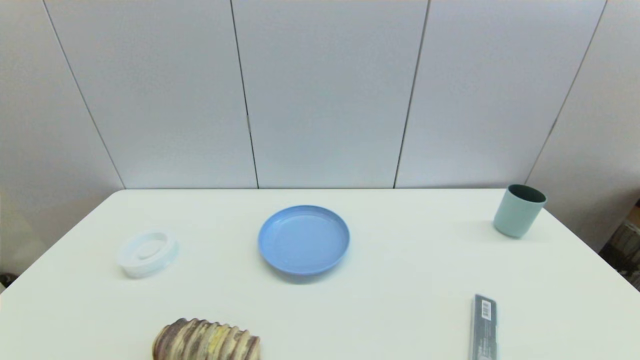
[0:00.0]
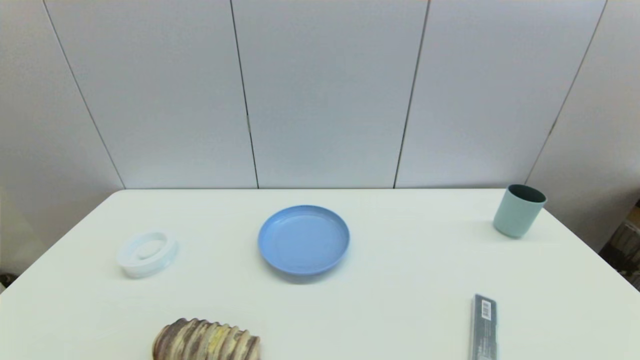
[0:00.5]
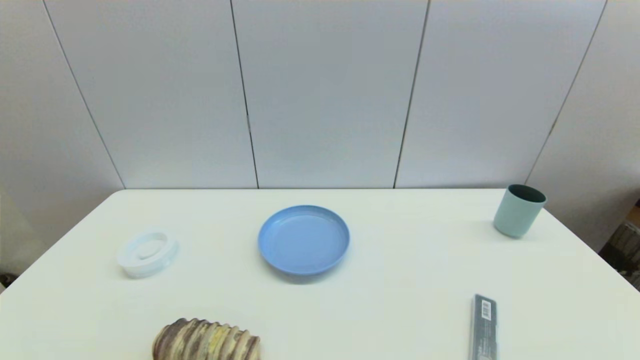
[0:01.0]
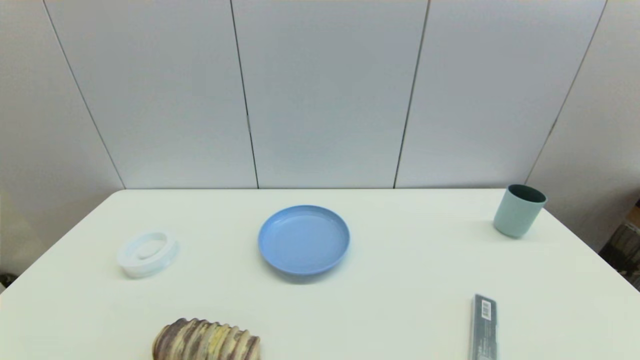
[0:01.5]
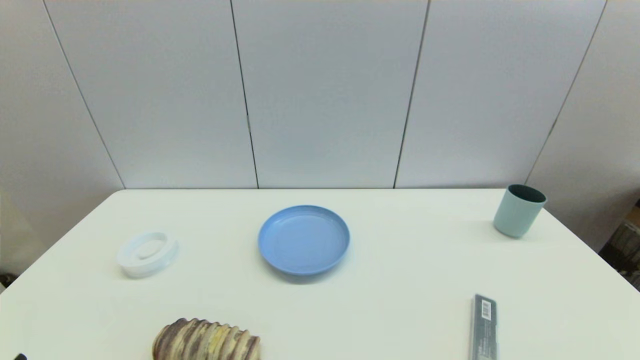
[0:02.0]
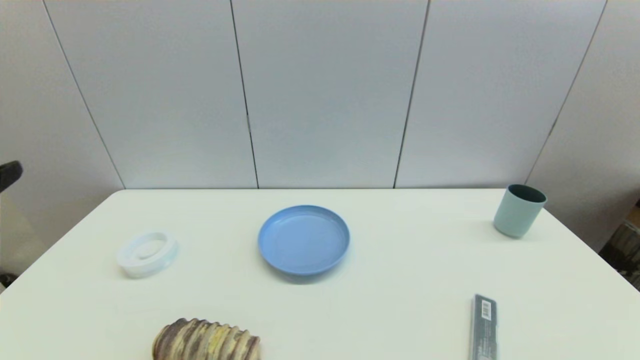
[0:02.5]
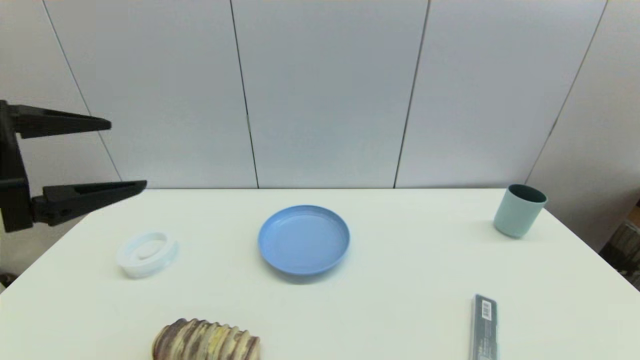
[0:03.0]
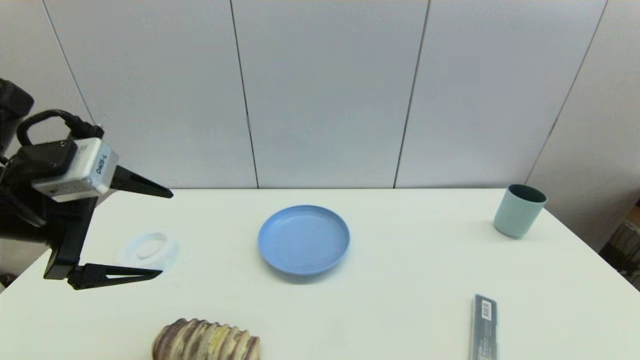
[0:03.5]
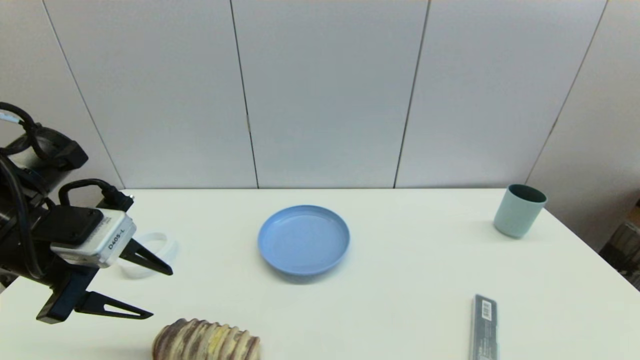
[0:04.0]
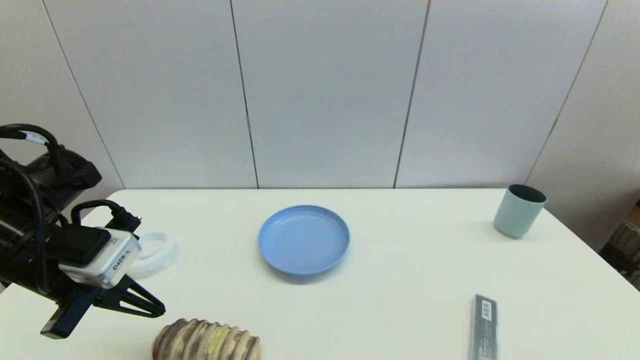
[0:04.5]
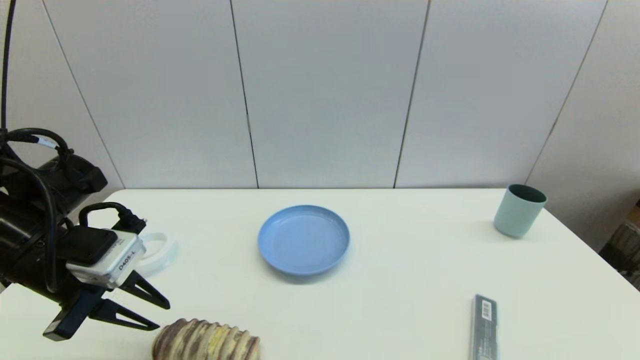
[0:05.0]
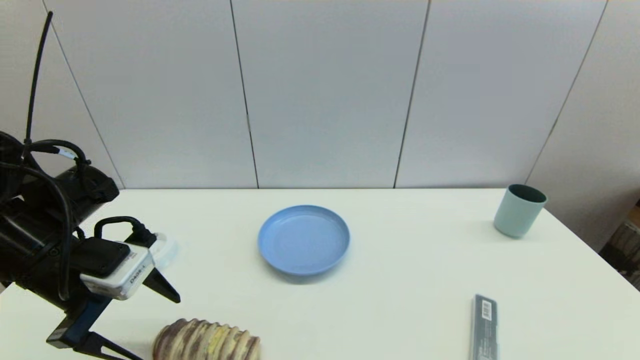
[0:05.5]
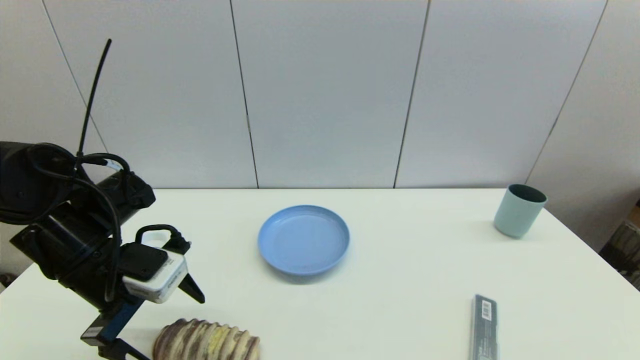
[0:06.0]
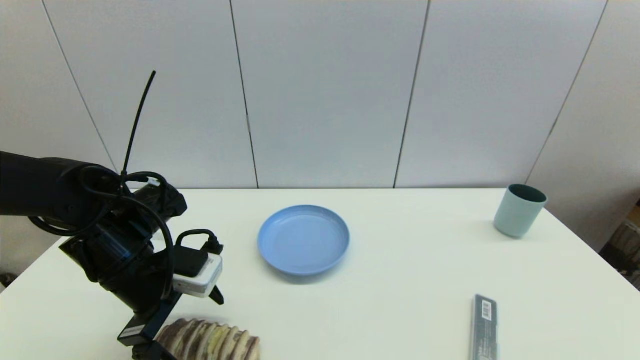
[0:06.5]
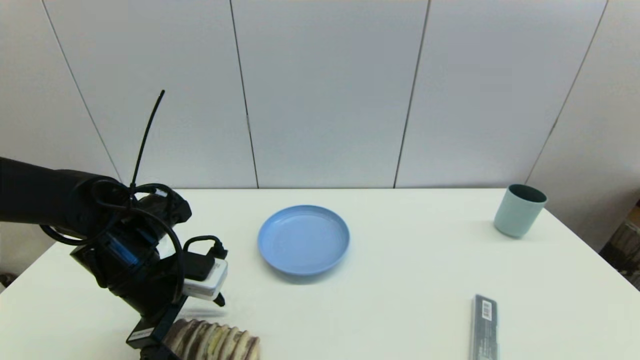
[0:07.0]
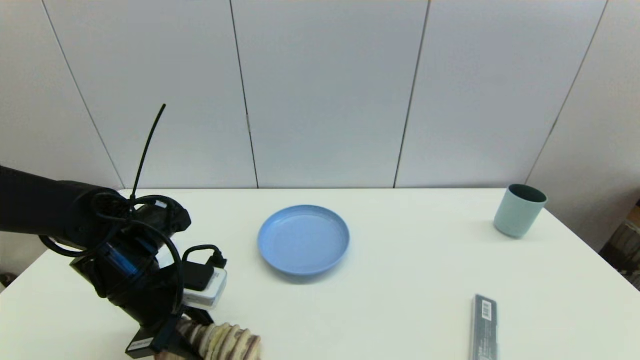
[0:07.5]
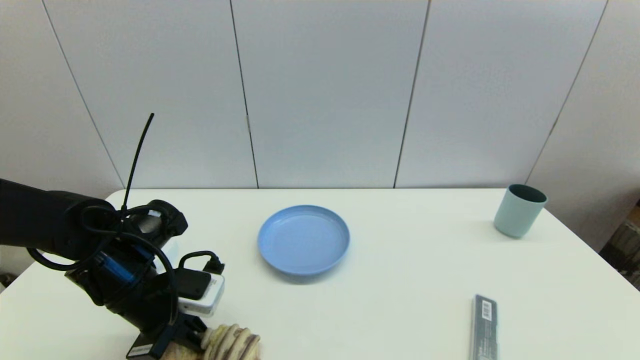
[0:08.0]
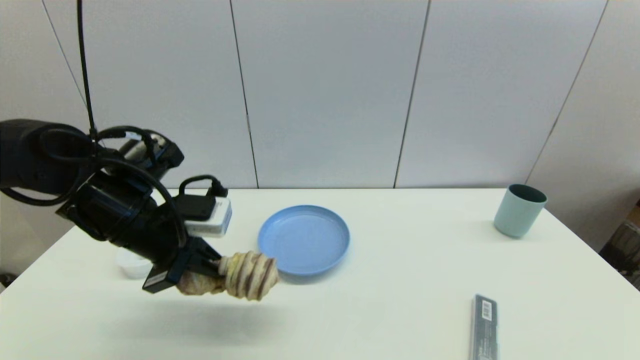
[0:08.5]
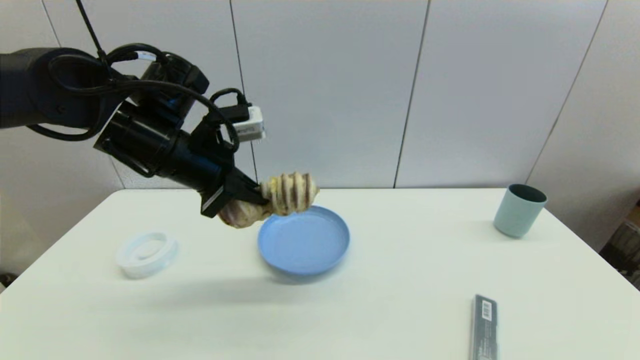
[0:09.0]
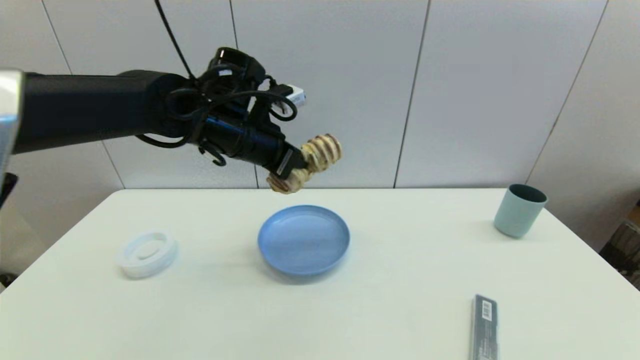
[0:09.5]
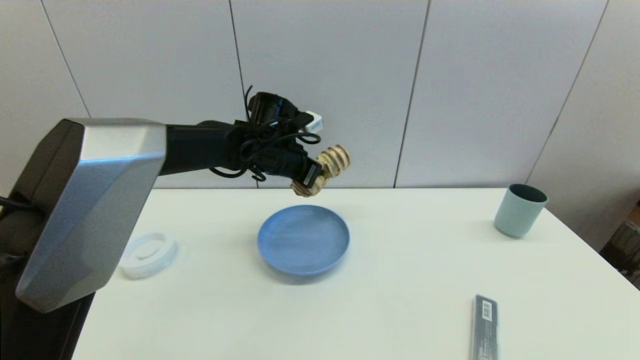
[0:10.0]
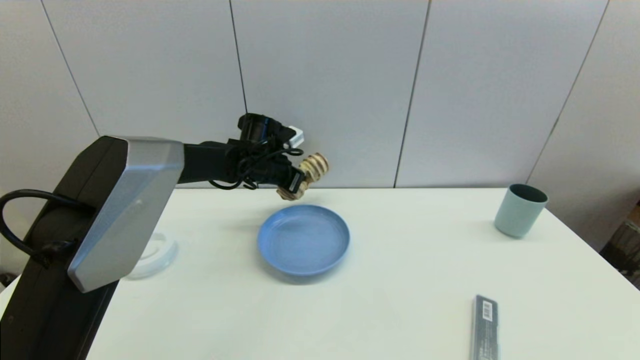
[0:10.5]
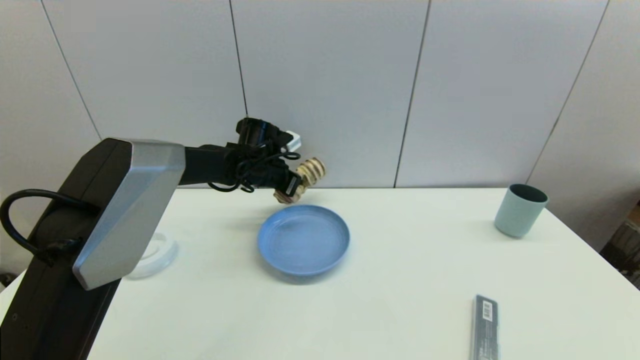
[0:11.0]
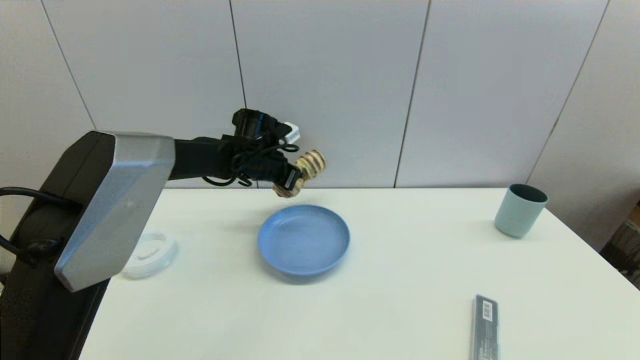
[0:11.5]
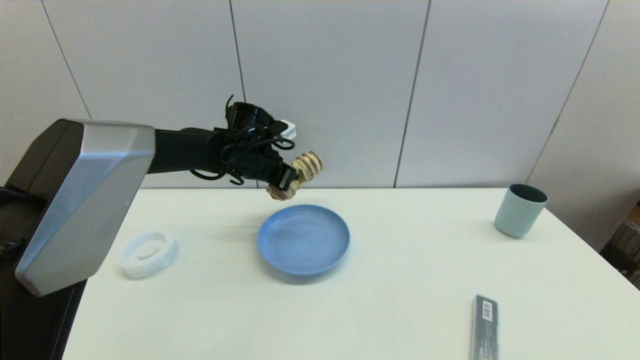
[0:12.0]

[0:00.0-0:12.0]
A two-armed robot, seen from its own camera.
Step, 0:03.0 to 0:07.5: Grasp the long bread with left gripper.
0:02.0 to 0:04.0: The left gripper heads forward and upward, covering approximately 25 cm, and closes.
0:04.0 to 0:06.0: The left gripper goes roughly 5 cm downward, and opens up.
0:06.0 to 0:08.0: The left gripper moves downward, roughly 5 cm, and closes its fingers.
0:08.0 to 0:10.0: The left gripper heads forward and to the right, covering some 25 cm.

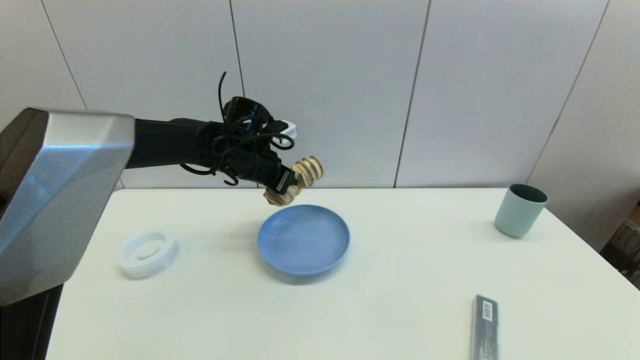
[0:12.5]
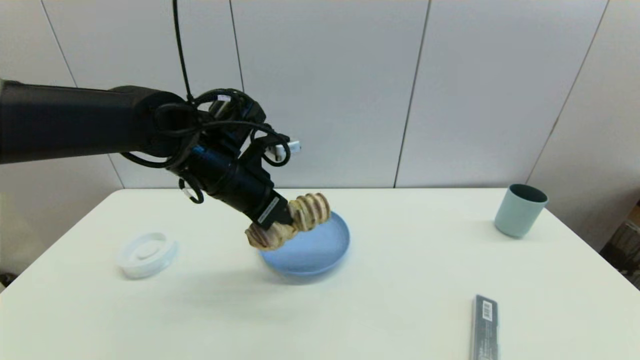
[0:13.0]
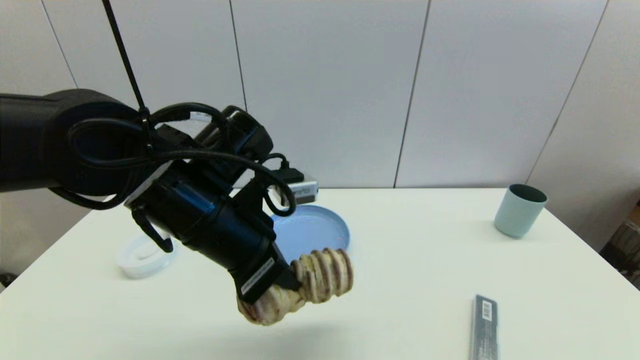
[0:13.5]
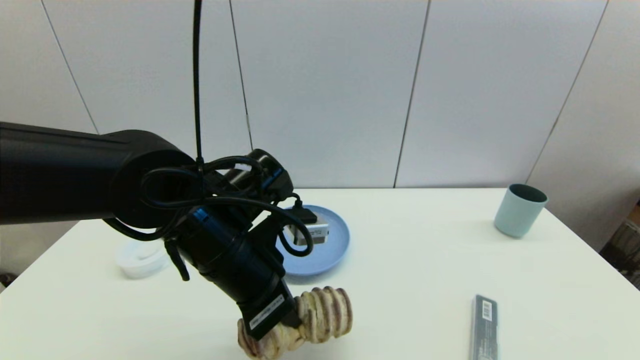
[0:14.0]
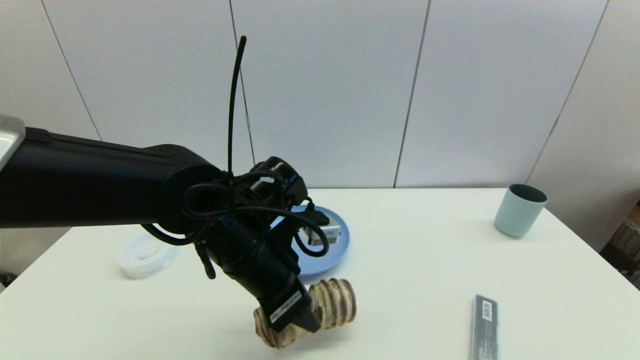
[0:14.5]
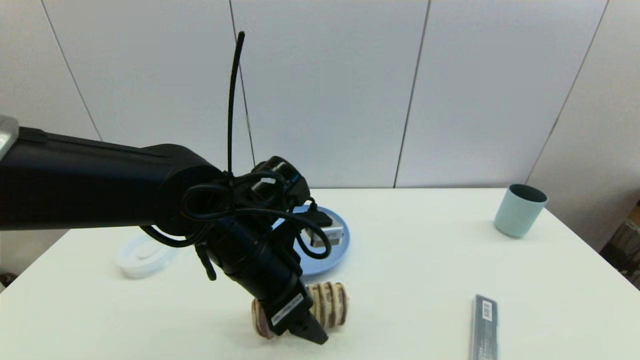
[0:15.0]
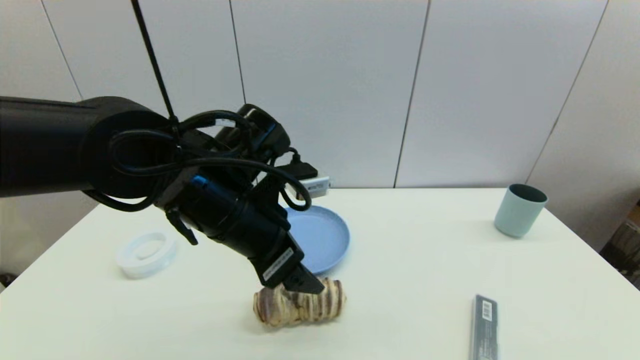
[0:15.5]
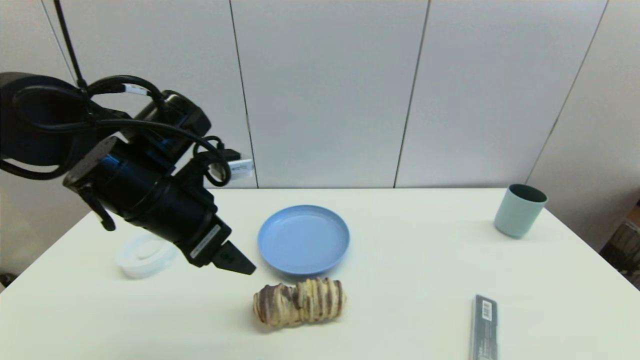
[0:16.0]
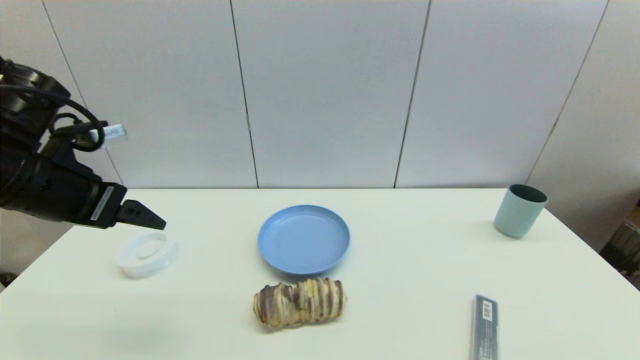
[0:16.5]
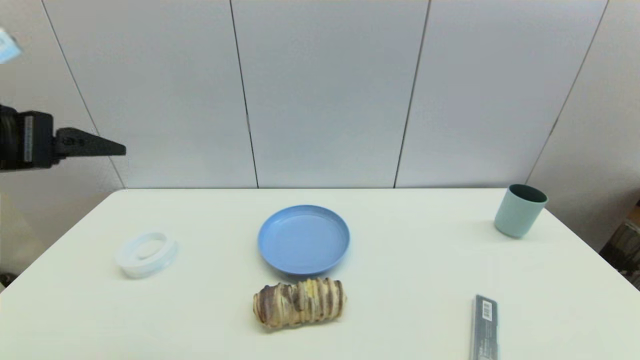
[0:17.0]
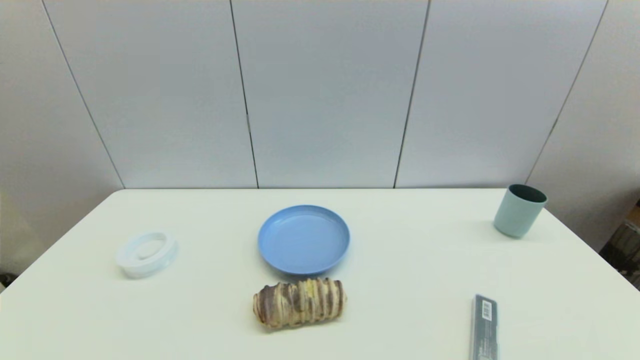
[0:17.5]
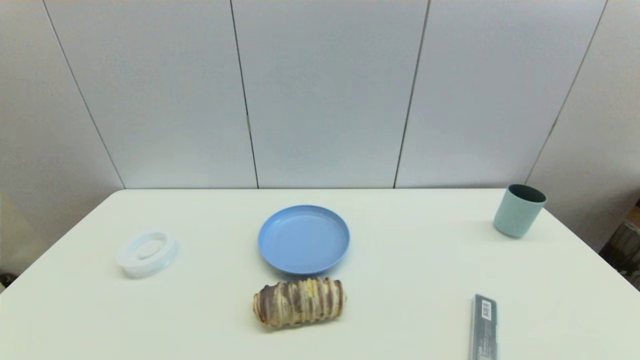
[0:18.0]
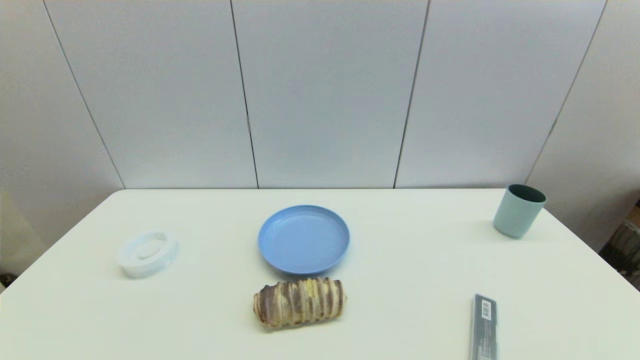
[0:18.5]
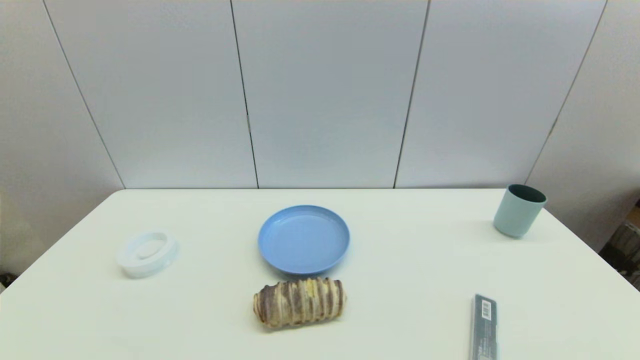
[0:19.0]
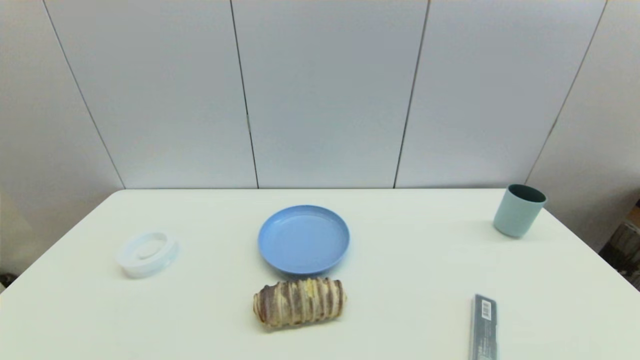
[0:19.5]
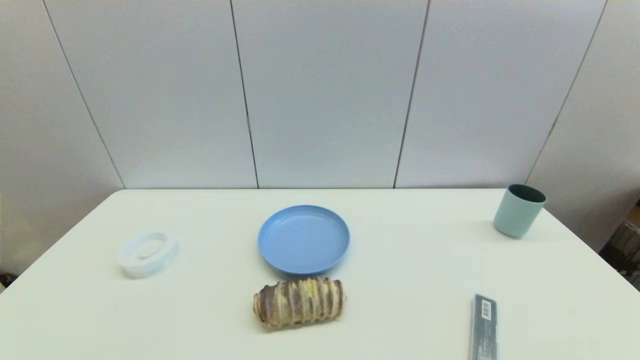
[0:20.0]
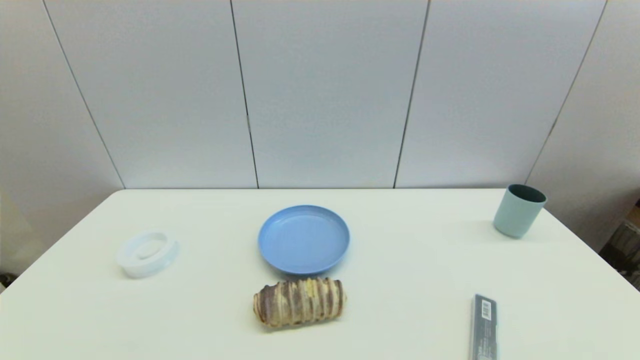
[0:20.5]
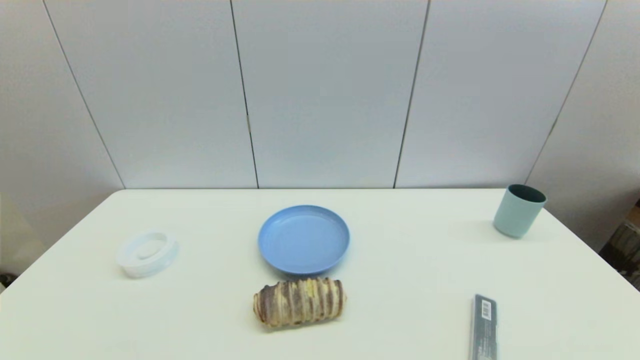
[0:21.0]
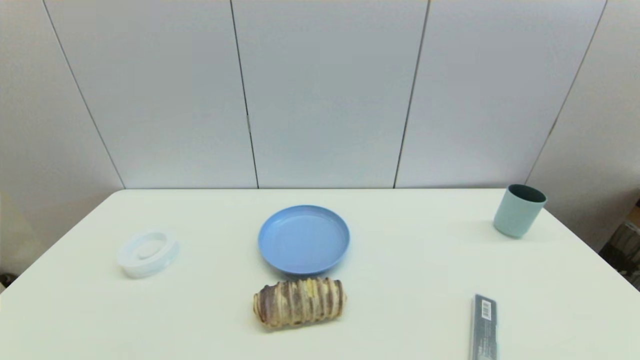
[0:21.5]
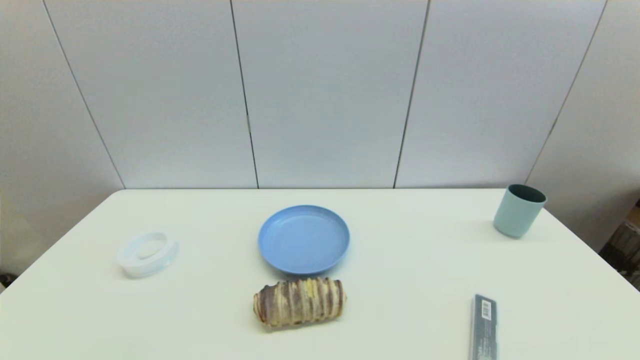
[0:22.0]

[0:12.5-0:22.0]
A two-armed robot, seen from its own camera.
Step, 0:12.5 to 0:15.0: Place the long bread on the table with left gripper.
0:12.5 to 0:14.5: The left gripper is displaced backward by approximately 15 cm, and opens up.
0:14.5 to 0:16.5: The left gripper moves to the left and upward, about 25 cm, and opens up.
0:16.5 to 0:18.0: The left gripper moves backward, roughly 25 cm.
0:20.0 to 0:22.0: Neither gripper changes place.
